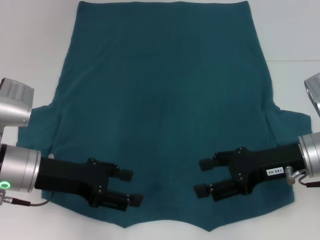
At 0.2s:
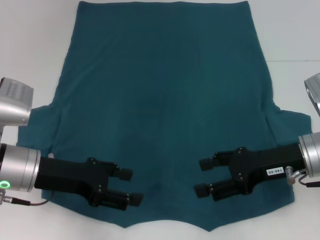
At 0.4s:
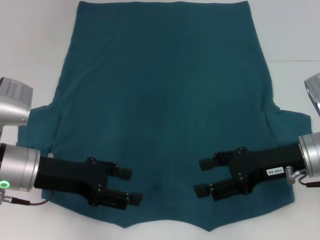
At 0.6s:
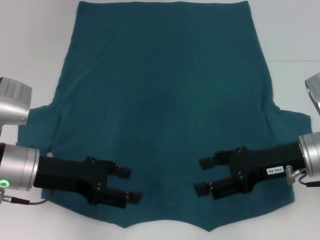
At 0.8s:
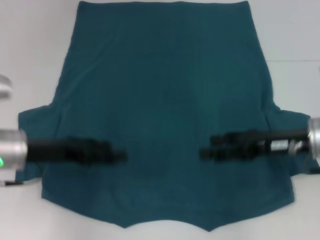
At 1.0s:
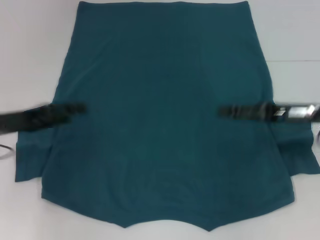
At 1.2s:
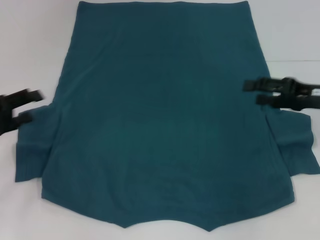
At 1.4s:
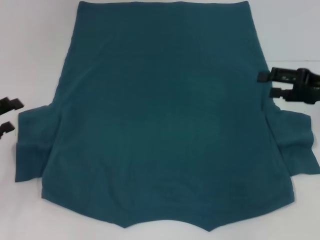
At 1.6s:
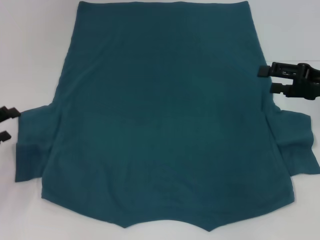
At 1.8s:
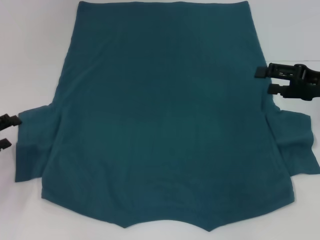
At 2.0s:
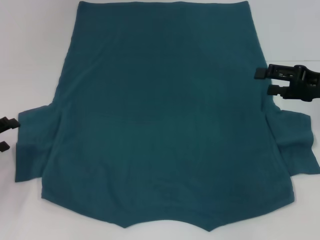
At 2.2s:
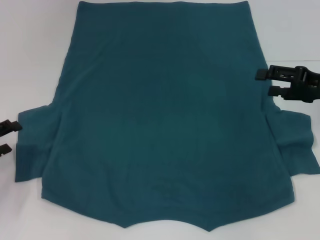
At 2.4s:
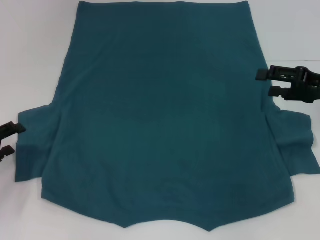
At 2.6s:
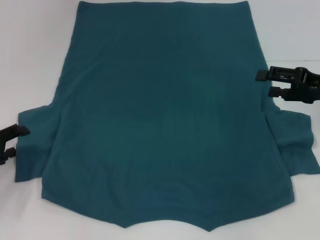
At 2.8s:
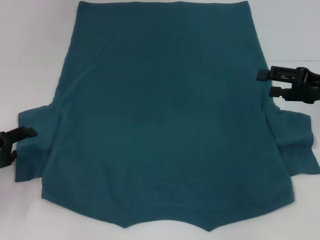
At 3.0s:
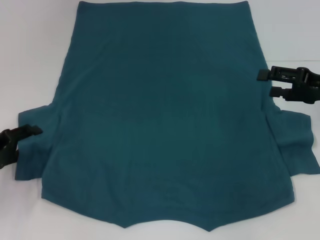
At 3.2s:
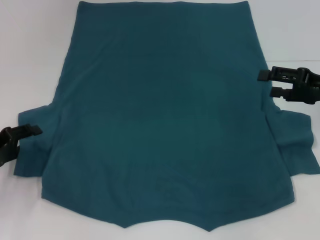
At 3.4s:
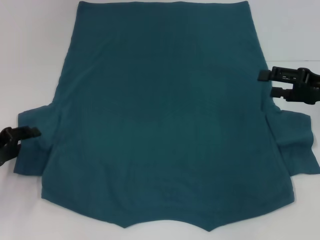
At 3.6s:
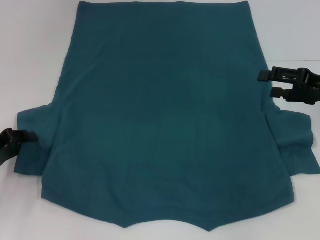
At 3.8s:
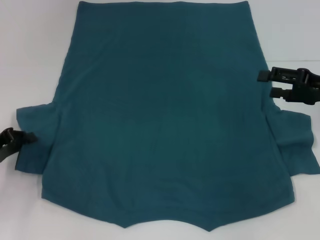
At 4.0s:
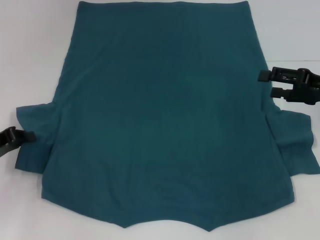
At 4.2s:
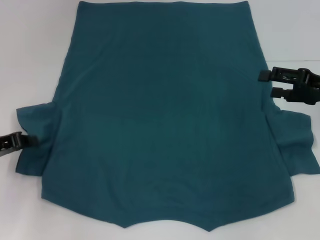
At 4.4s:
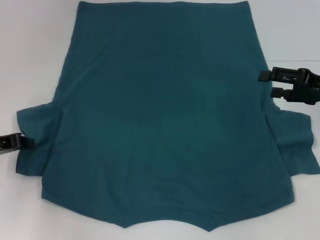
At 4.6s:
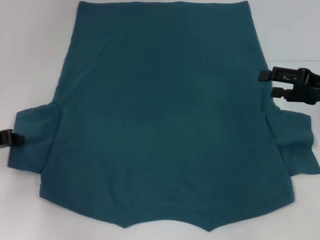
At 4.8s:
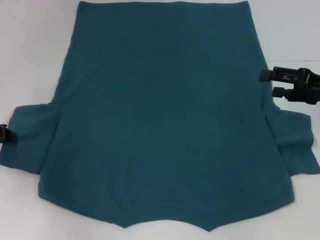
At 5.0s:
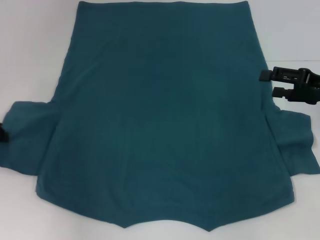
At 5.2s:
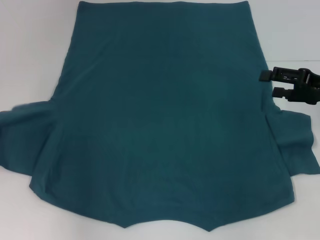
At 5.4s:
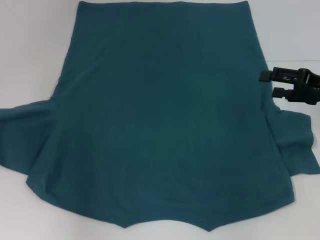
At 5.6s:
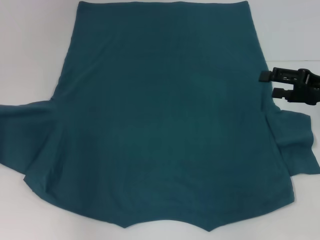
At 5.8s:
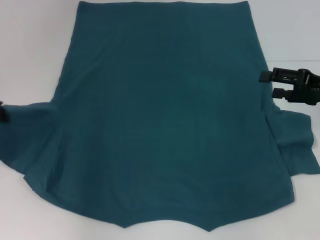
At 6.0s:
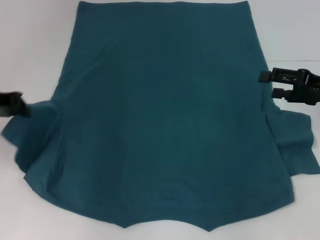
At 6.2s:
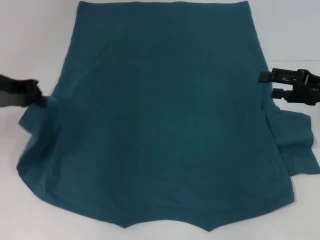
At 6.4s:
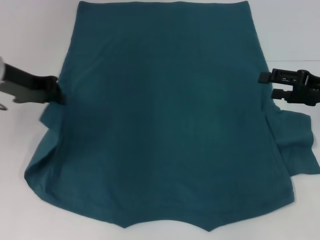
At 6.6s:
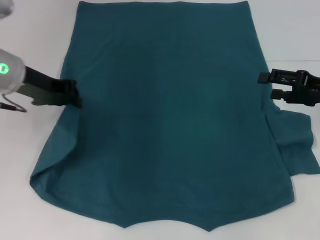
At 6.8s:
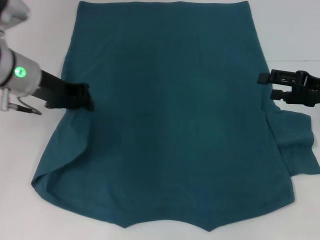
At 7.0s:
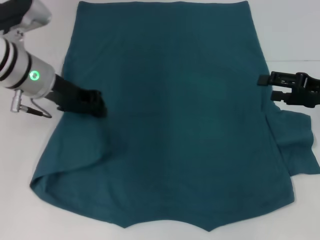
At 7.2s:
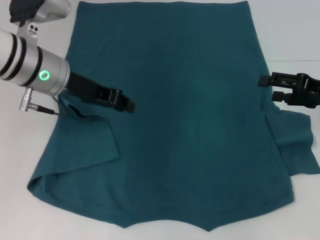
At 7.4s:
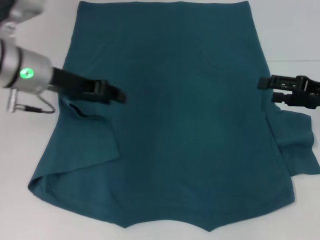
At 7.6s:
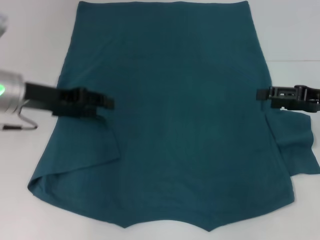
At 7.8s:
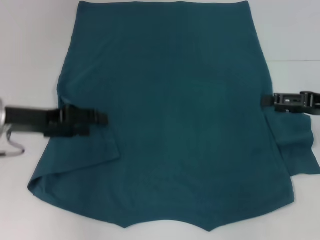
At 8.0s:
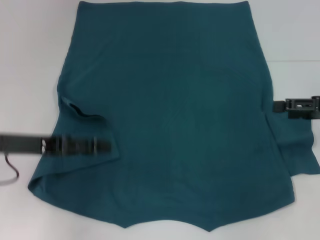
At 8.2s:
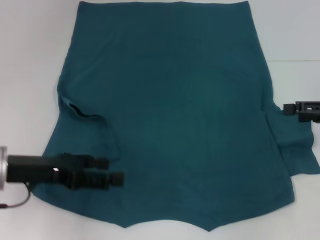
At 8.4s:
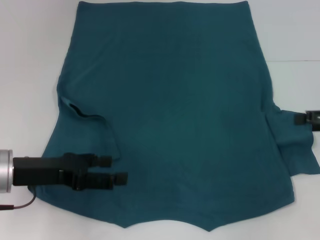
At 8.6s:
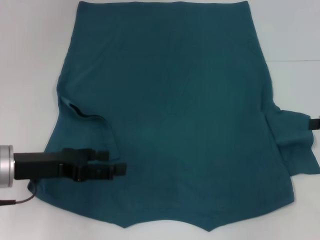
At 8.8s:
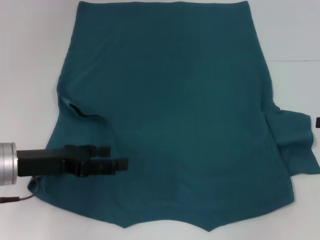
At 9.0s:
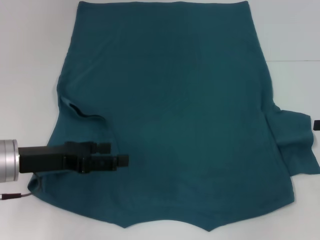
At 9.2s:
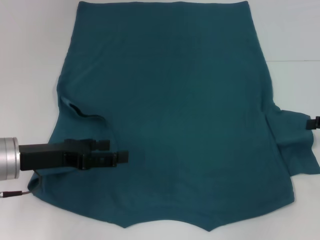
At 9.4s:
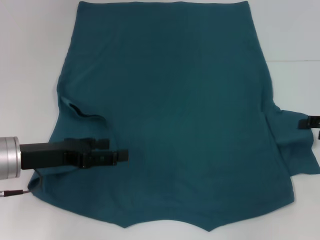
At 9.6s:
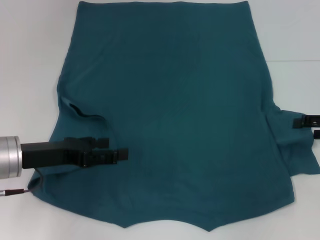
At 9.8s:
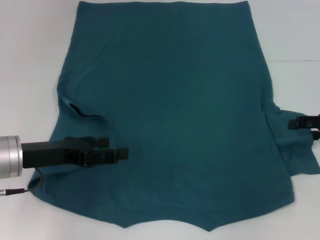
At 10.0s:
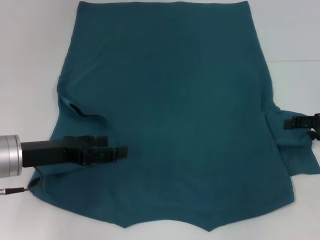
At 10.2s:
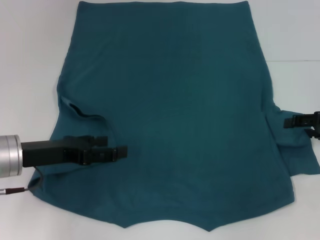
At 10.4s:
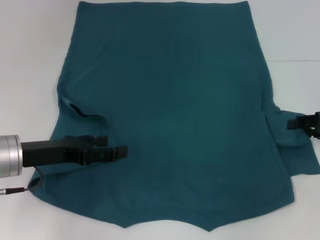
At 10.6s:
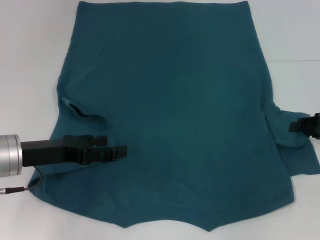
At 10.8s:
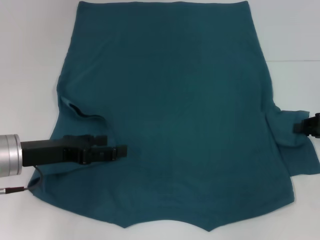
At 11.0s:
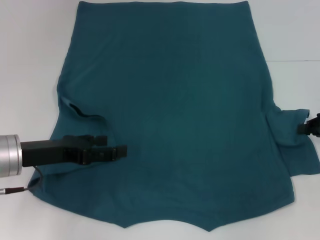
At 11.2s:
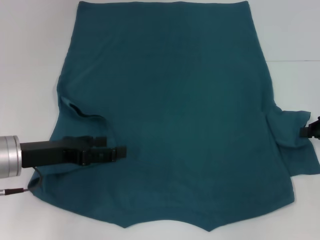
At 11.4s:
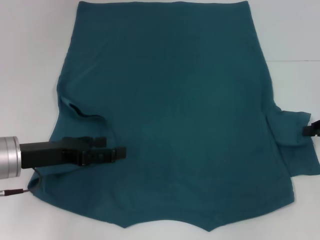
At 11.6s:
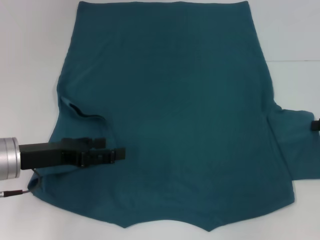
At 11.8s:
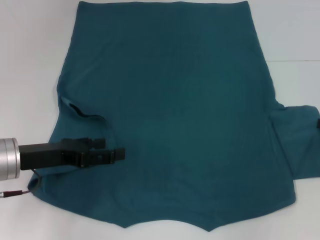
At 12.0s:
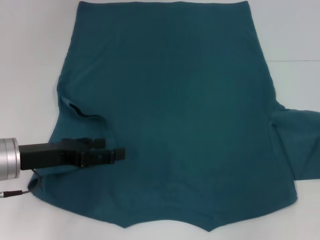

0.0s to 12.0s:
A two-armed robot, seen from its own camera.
Step, 0.0s to 7.0s: Fold the bottom left sleeve with your left hand.
0.0s to 1.6s: The left gripper goes roughly 15 cm to the left; the right gripper travels to the right and forward by roughly 10 cm.
1.6s to 3.0s: There are only small adjustments of the grippers.
3.0s to 4.4s: The left gripper closes its fingers.
4.4s to 6.0s: The left gripper heads upward, covering about 10 cm.
6.0s to 7.6s: The left gripper moves to the right, roughly 5 cm, and opens.
7.6s to 9.0s: The left gripper moves backward and downward, roughly 10 cm, and opens its fingers. The right gripper moves to the right, approximately 5 cm.
9.0s to 10.4s: There are only small adjustments of the grippers.
10.4s to 12.0s: The right gripper closes.

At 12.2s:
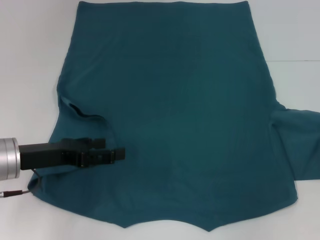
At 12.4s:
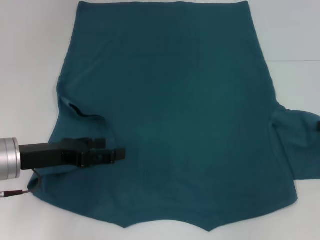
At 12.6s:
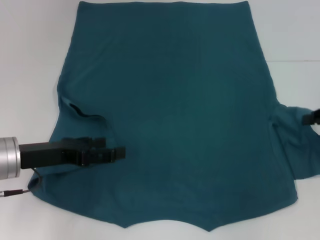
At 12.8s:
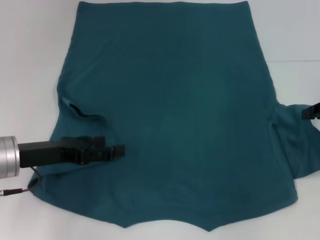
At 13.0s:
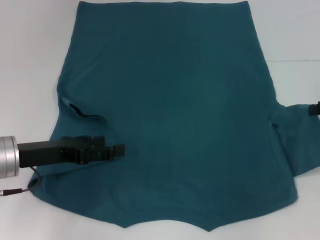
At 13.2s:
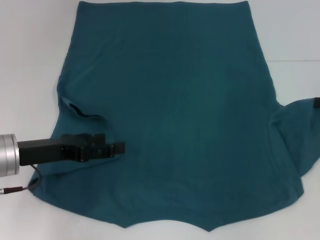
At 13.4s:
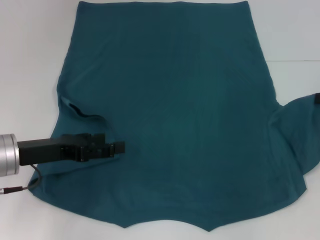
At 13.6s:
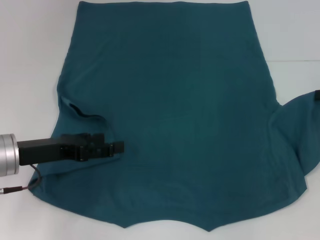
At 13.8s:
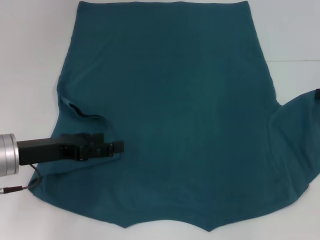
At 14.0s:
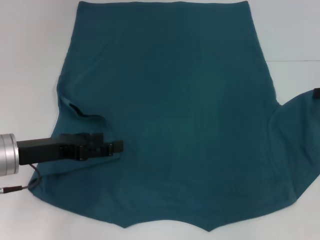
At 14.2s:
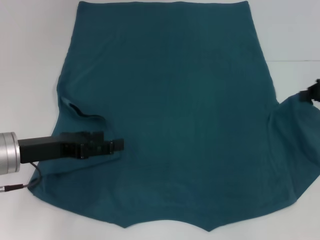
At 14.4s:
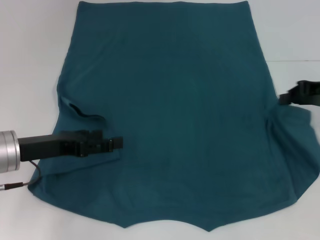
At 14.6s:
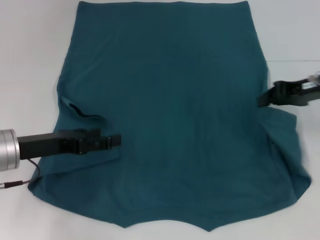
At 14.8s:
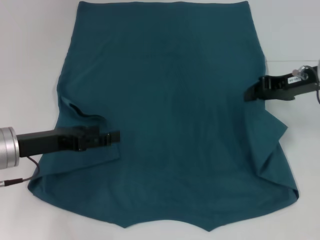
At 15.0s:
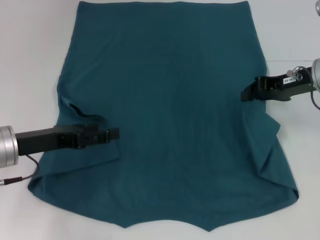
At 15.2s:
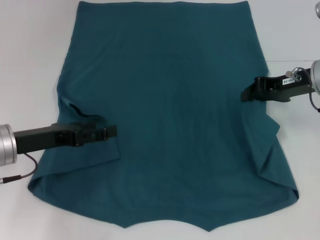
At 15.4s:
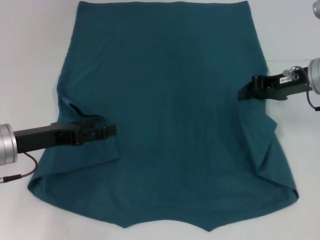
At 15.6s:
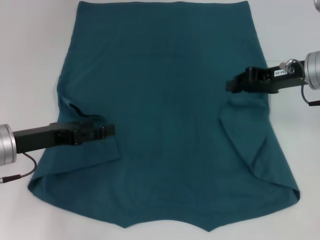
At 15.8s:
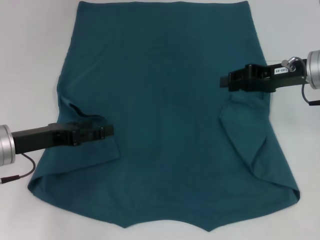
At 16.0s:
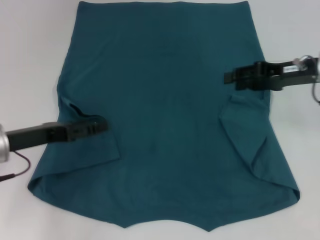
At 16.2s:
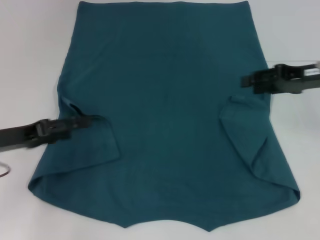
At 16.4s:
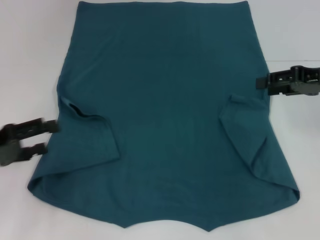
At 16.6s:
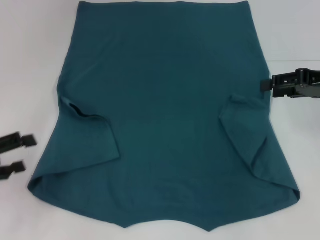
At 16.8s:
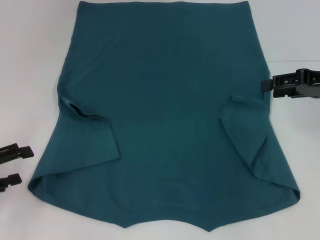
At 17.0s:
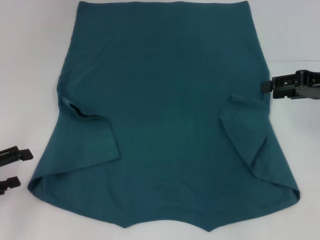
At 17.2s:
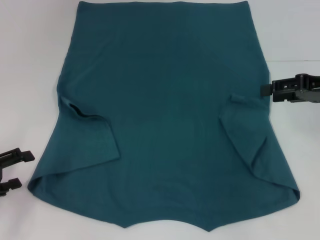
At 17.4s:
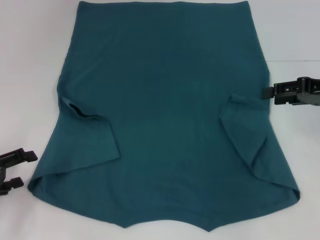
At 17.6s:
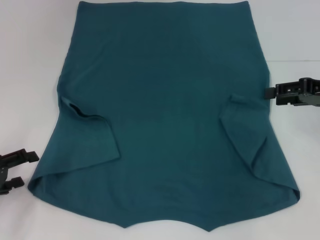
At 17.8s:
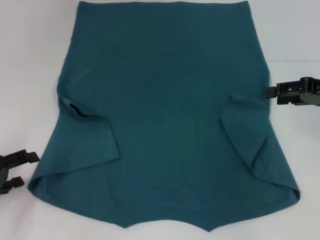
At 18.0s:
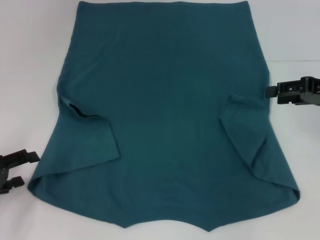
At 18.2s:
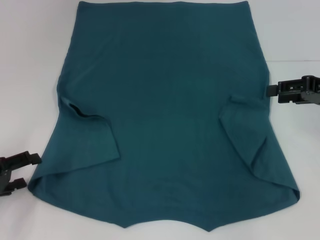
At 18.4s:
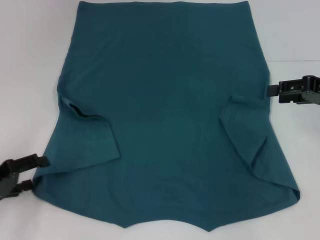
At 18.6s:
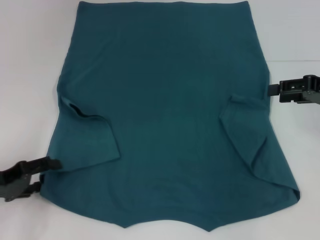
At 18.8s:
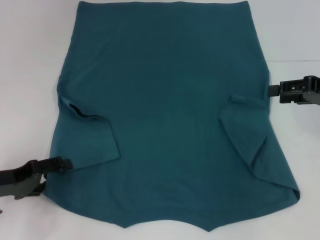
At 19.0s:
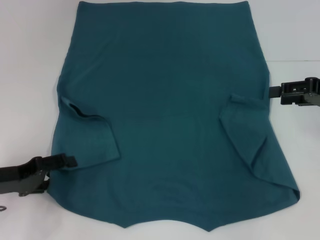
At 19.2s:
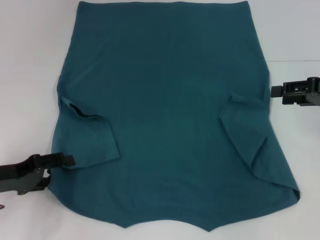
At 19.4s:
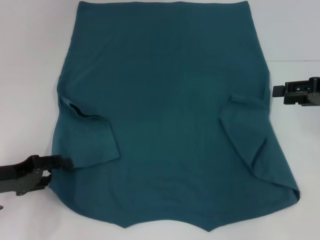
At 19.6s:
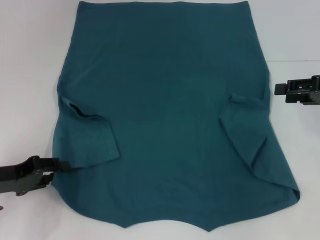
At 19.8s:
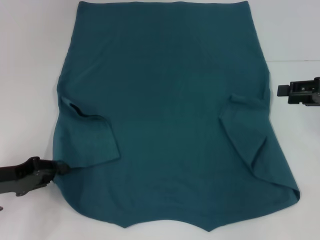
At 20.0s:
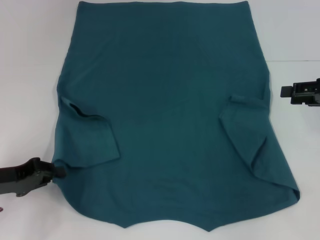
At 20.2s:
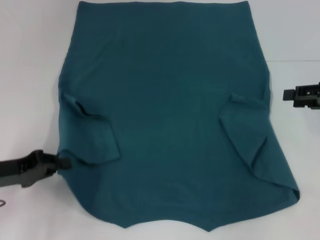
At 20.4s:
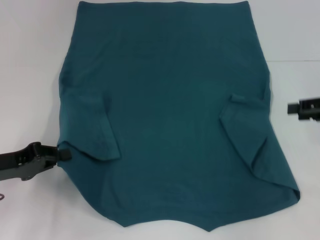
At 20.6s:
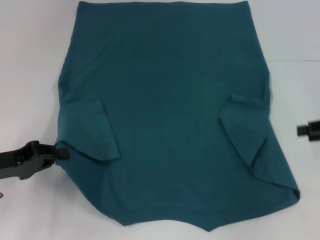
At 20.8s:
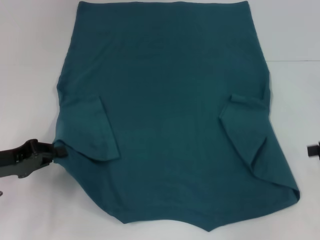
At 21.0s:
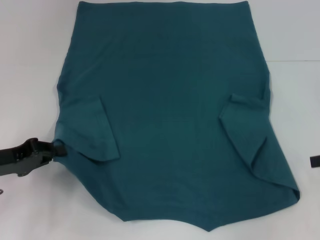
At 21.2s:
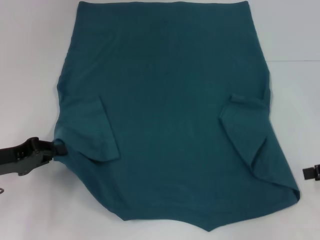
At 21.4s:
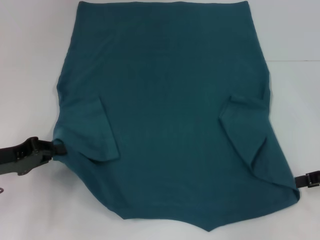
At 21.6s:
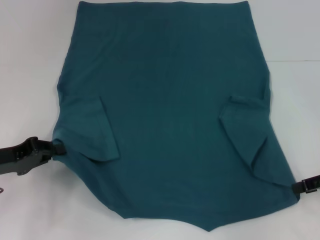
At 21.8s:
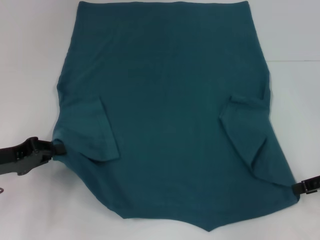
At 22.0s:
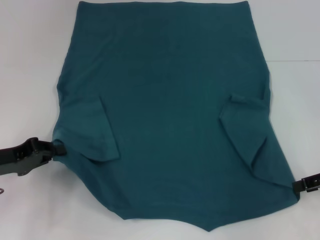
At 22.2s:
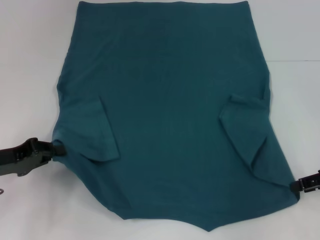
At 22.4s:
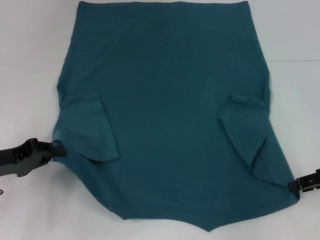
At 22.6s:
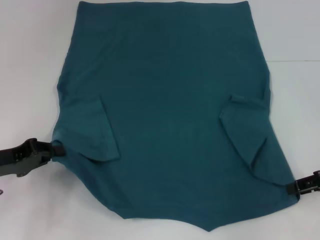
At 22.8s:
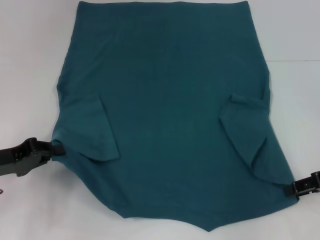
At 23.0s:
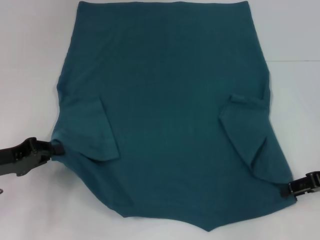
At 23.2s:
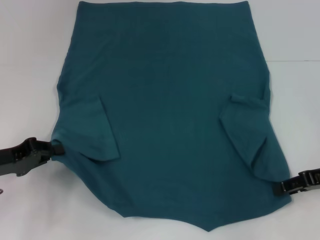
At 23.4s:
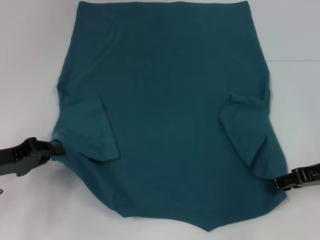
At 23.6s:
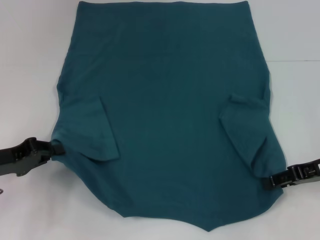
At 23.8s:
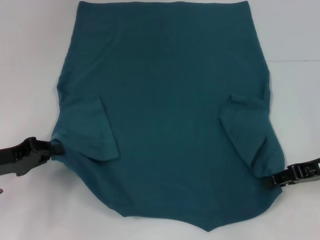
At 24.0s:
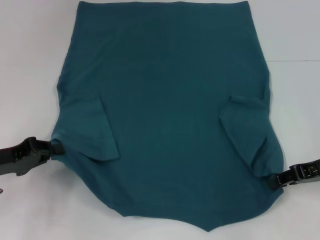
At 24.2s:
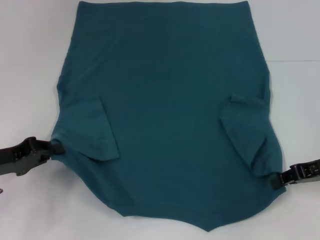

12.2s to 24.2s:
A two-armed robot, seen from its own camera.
Step, 12.2s to 15.8s: Fold the bottom right sleeve to the right.
Step, 16.0s to 20.0s: Grab the bottom left corner with your left hand.
12.2s to 13.8s: The right gripper moves approximately 5 cm.
13.8s to 15.2s: The right gripper travels to the left by some 10 cm.
15.2s to 16.6s: The left gripper travels to the left and backward by approximately 10 cm, while the right gripper is displaced to the right by some 5 cm, and opens its fingers.
16.6s to 18.2s: The grippers stay close to where they were, moving slightly.
18.2s to 19.8s: The left gripper closes its fingers.
19.8s to 21.2s: The right gripper shifts approximately 5 cm backward; the left gripper closes up.
21.2s to 22.6s: The grippers stay close to where they were, moving slightly.
22.6s to 24.2s: There are only small adjustments of the grippers.
